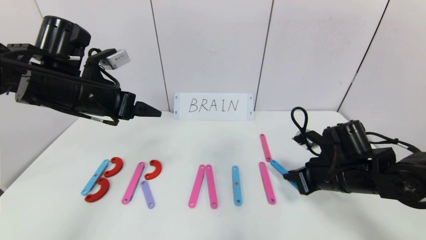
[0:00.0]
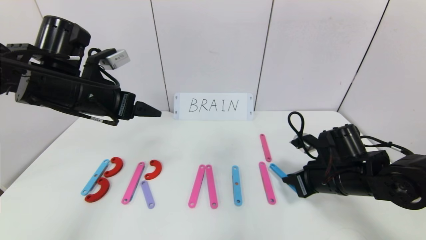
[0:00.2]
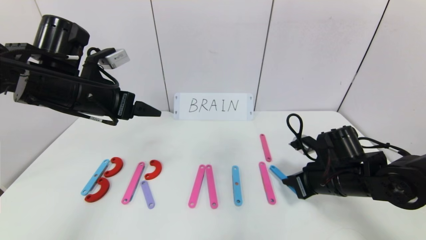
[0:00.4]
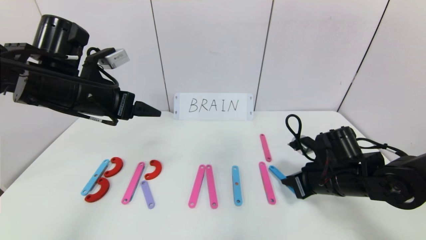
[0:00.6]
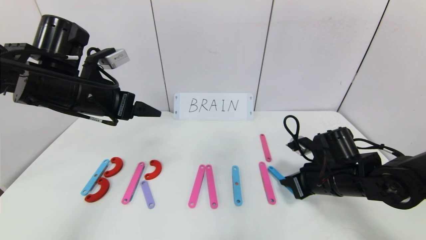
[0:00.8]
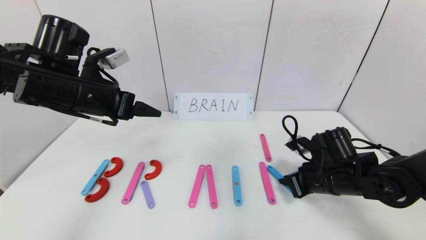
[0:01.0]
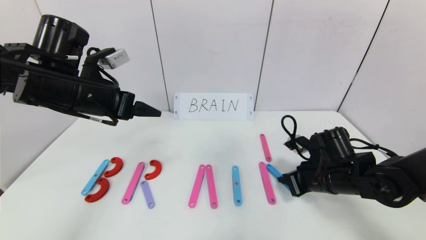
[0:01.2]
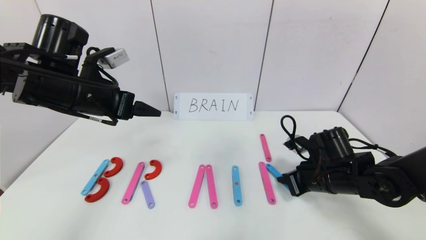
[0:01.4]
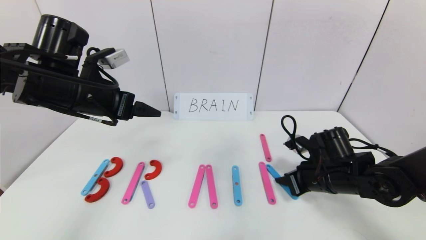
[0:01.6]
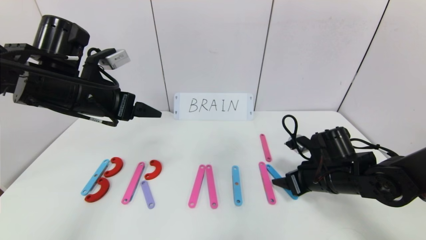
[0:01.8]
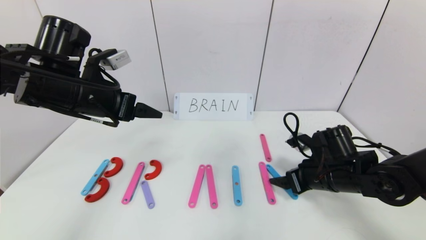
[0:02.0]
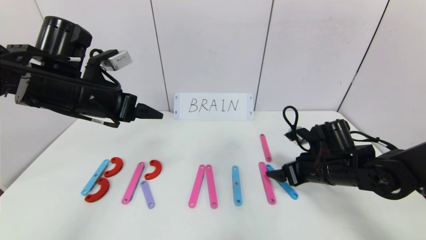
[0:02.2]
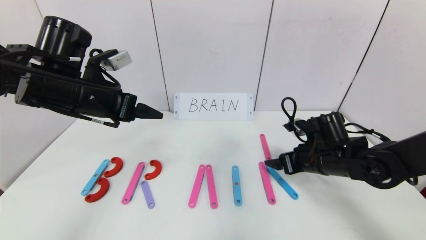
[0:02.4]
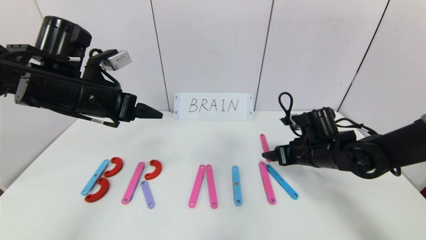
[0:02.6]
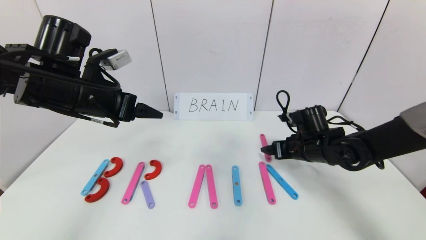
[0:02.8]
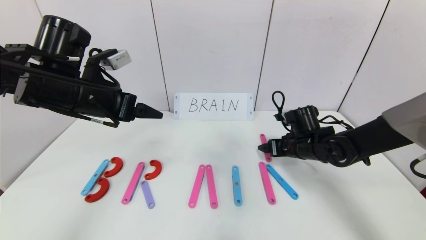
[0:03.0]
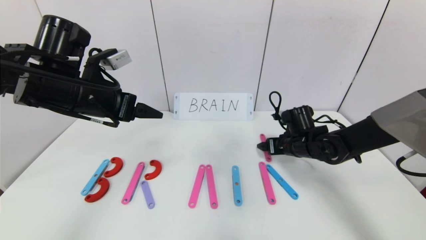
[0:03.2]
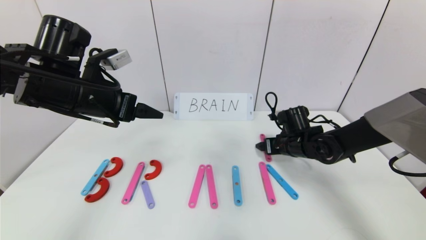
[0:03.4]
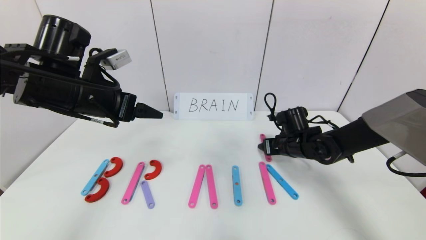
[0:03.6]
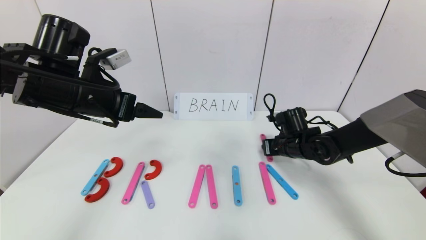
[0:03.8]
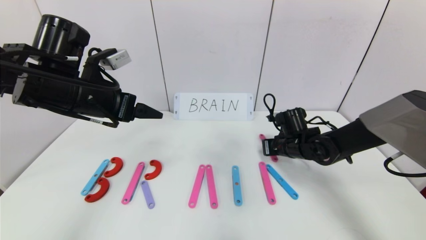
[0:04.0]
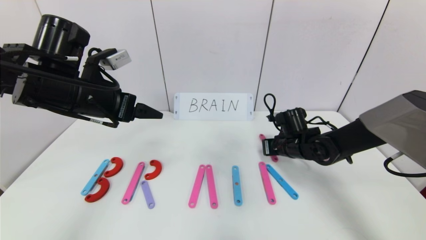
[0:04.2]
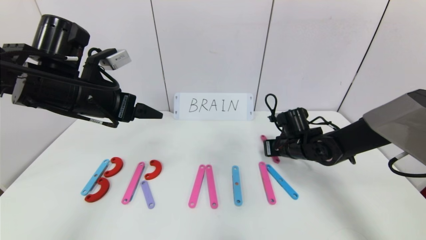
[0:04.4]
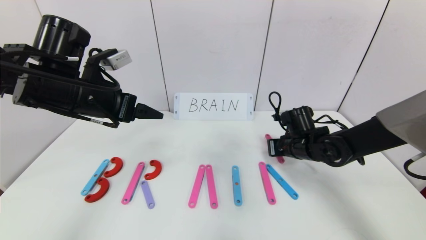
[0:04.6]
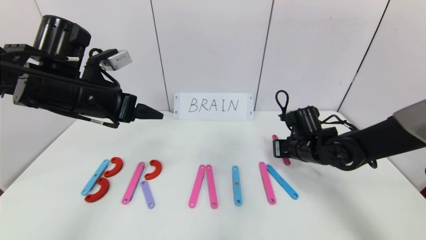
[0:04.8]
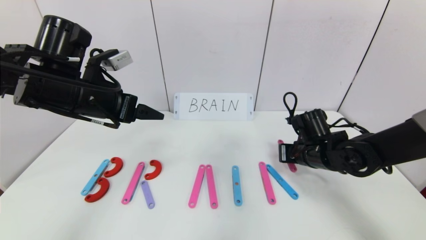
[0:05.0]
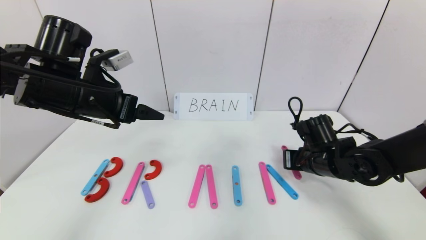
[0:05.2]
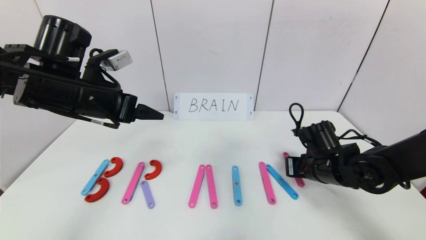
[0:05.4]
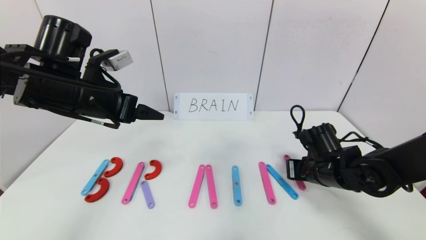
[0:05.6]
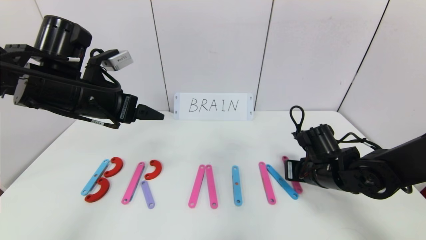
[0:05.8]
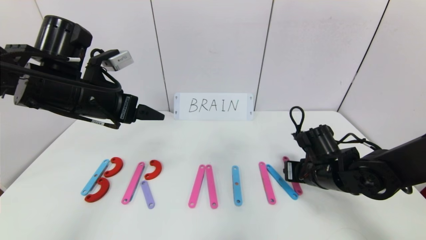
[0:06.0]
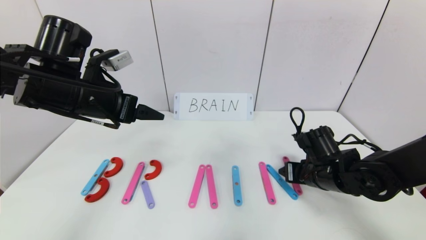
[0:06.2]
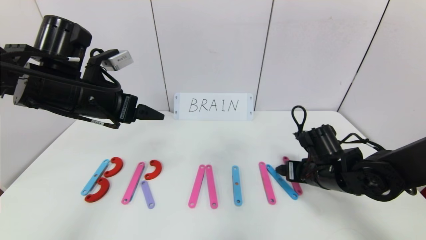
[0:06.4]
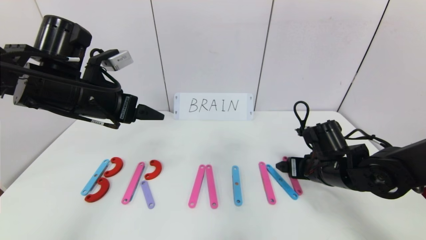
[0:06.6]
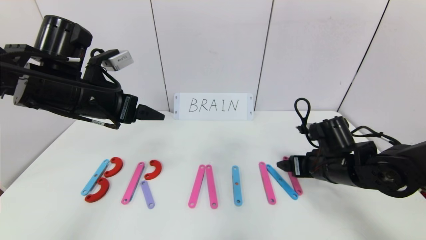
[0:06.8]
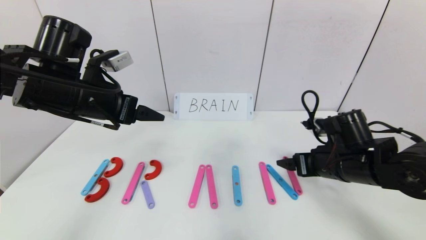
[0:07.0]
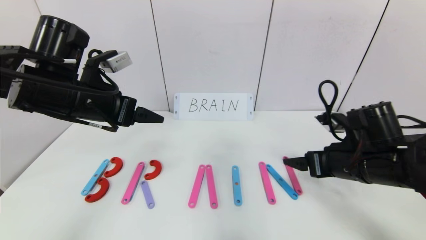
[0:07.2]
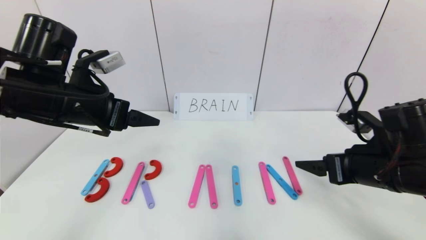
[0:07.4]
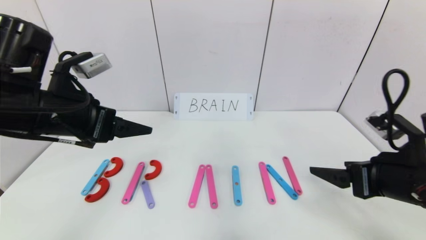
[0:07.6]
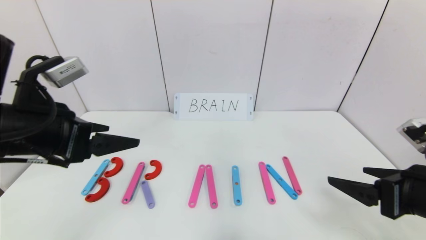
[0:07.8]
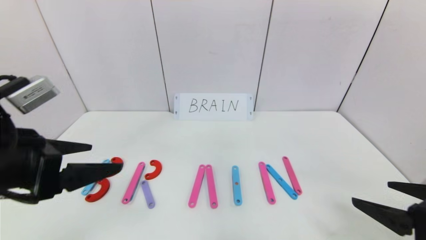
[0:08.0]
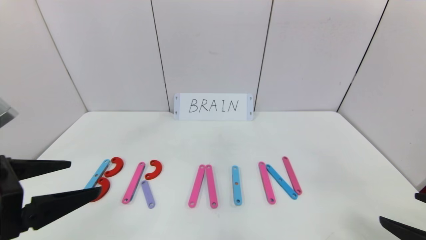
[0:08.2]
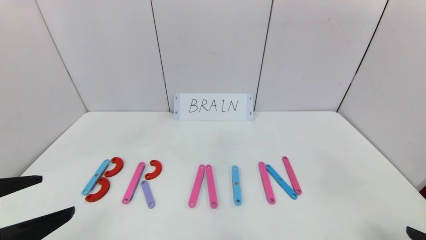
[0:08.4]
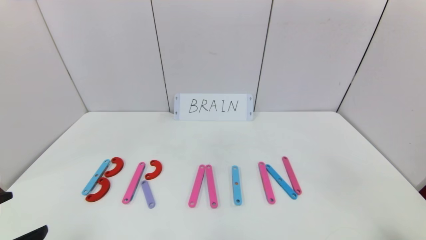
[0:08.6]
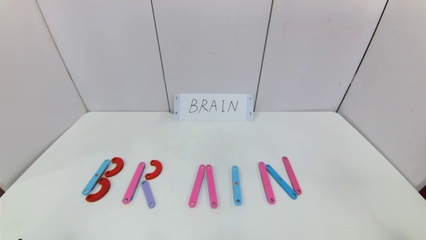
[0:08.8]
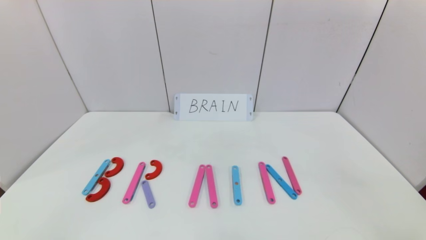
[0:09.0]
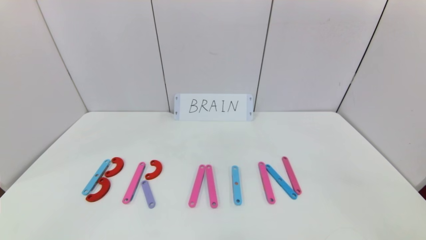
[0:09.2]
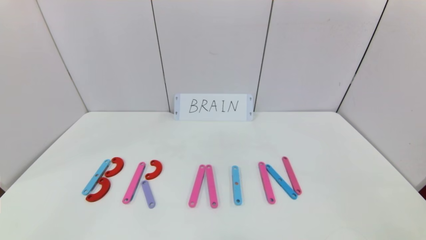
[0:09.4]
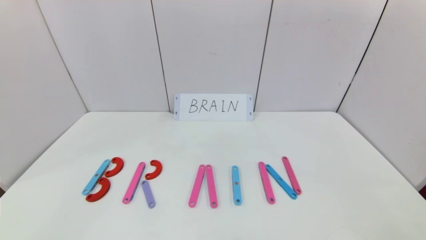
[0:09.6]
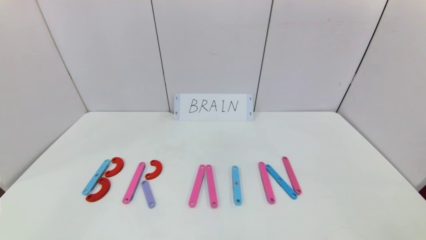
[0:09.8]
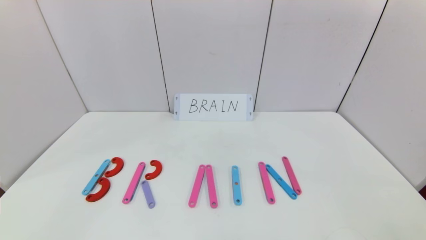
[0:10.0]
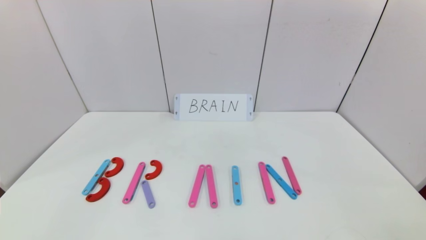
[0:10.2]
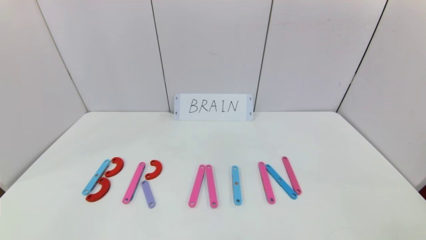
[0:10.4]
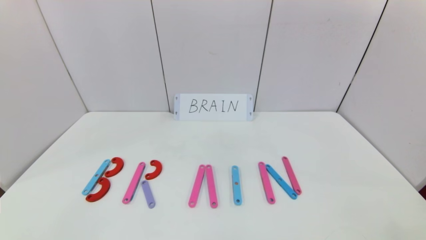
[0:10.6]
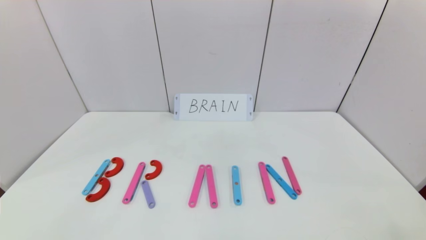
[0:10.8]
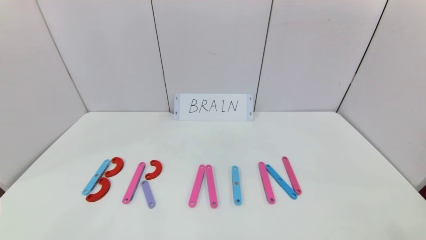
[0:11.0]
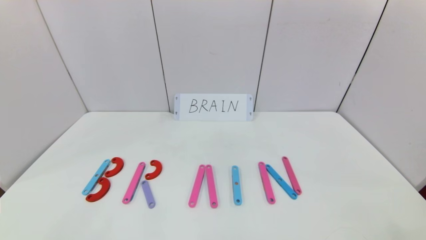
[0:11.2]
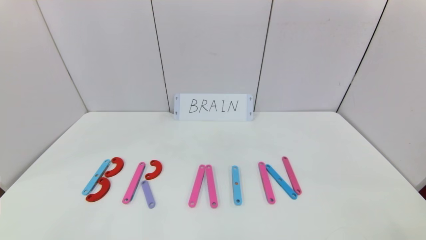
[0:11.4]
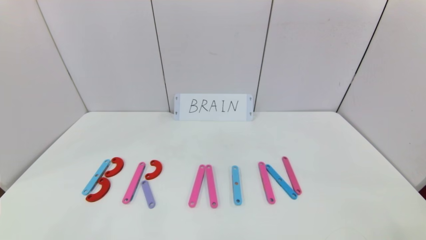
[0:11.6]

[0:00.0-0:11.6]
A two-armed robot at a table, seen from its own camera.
Task of the whole recording: rearrange the word baai as brain.
Step, 0:00.0 to 0:06.4: Place the character N after character I.
0:00.0 to 0:01.4: The grippers stay close to where they were, moving slightly.
0:01.4 to 0:02.8: The right gripper moves forward, some 5 cm, and opens its fingers.
0:02.8 to 0:04.4: The right gripper closes its fingers.
0:04.4 to 0:05.8: The right gripper shifts some 10 cm backward.
0:05.8 to 0:07.2: The right gripper heads upward, covering roughly 10 cm, and opens.
0:07.2 to 0:08.8: Both grippers move backward, some 25 cm.
